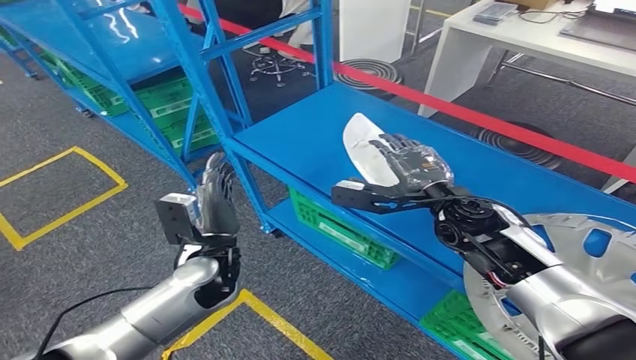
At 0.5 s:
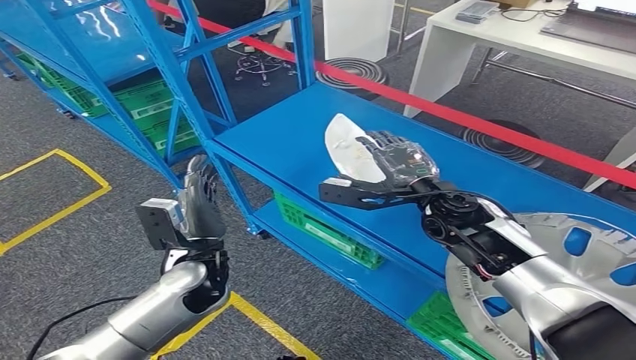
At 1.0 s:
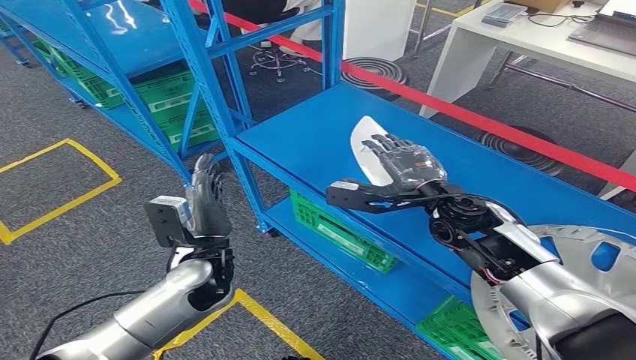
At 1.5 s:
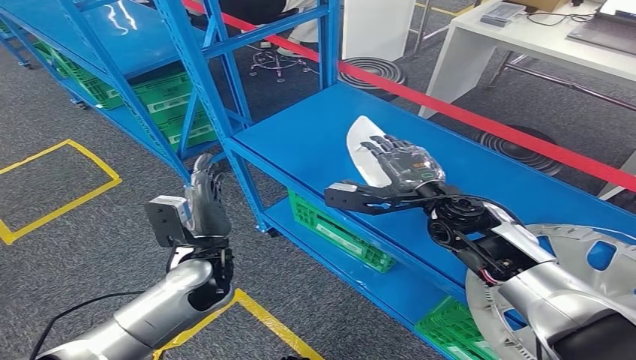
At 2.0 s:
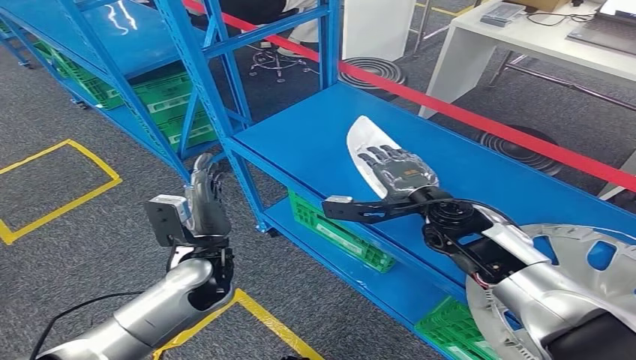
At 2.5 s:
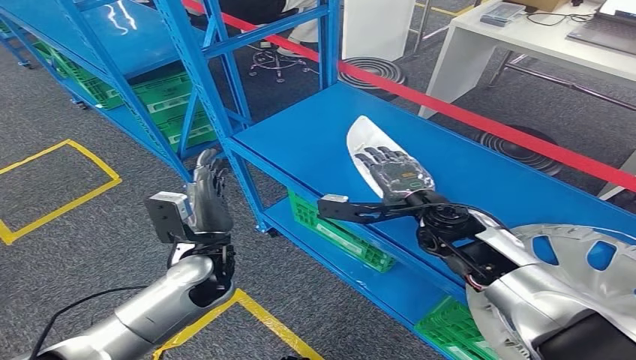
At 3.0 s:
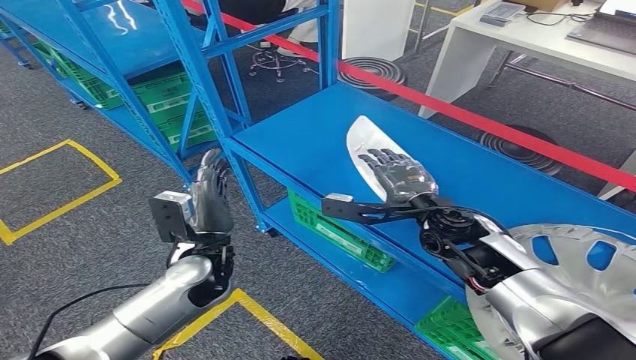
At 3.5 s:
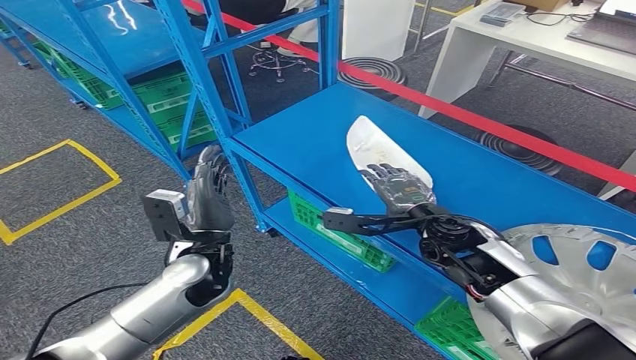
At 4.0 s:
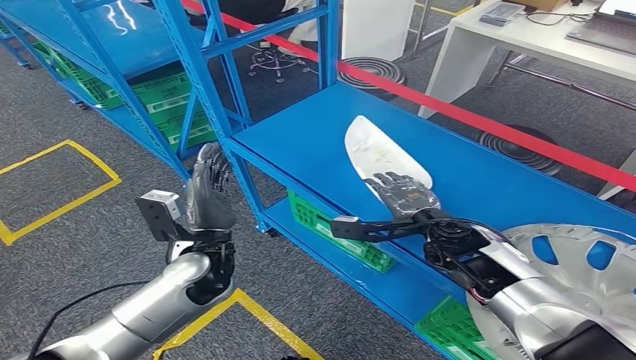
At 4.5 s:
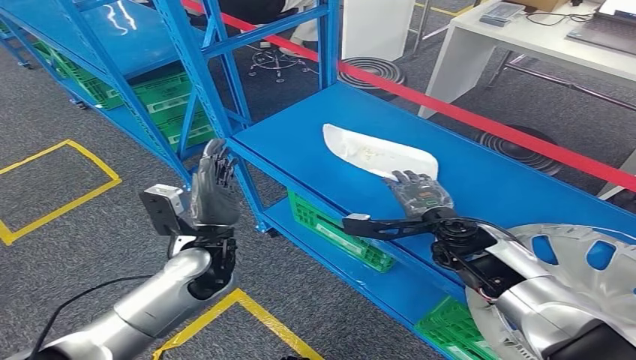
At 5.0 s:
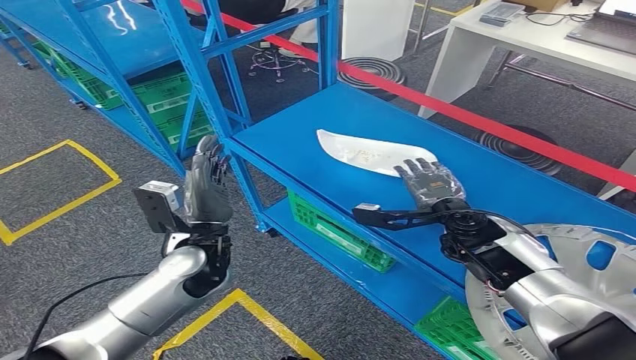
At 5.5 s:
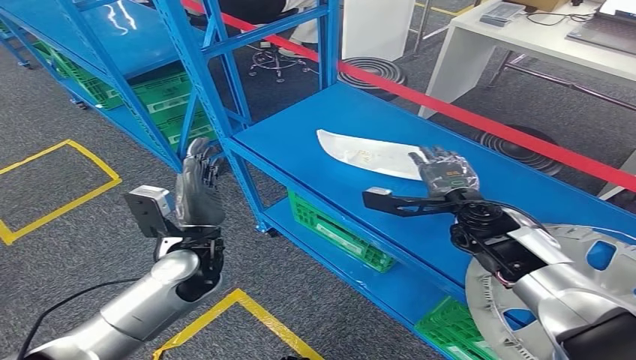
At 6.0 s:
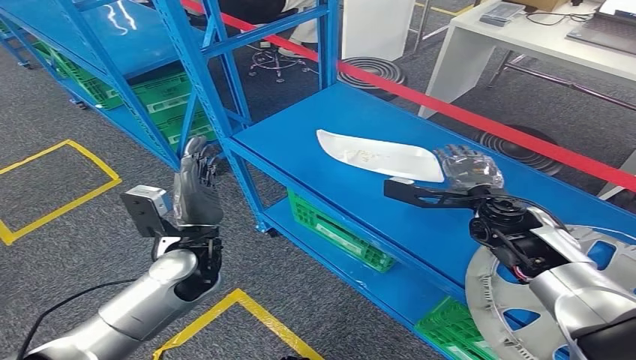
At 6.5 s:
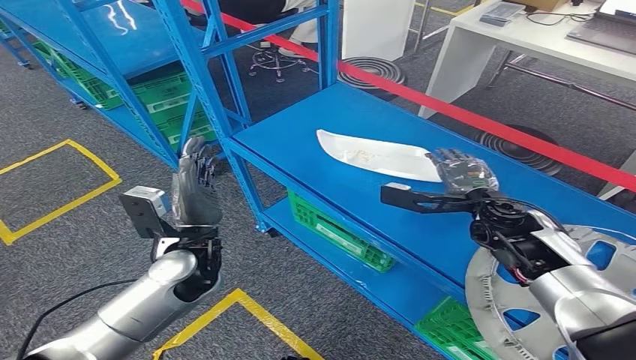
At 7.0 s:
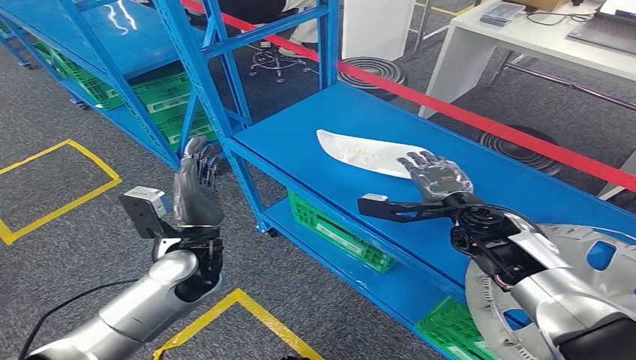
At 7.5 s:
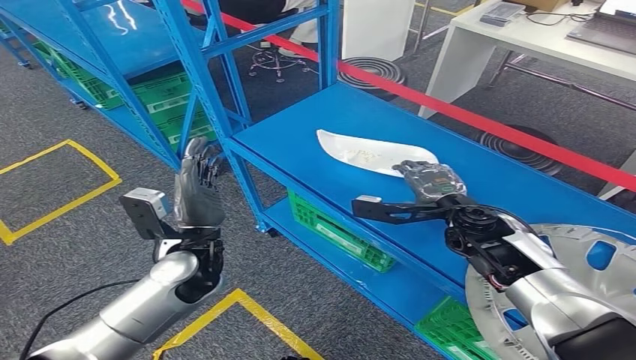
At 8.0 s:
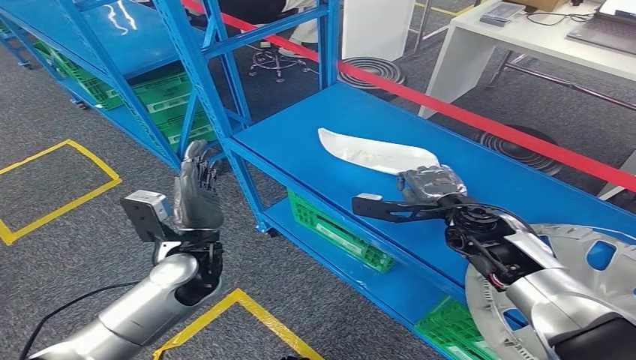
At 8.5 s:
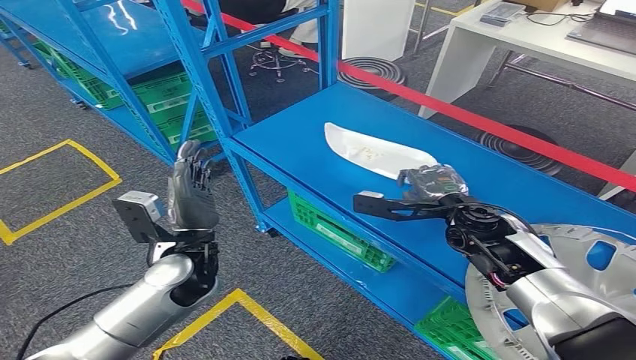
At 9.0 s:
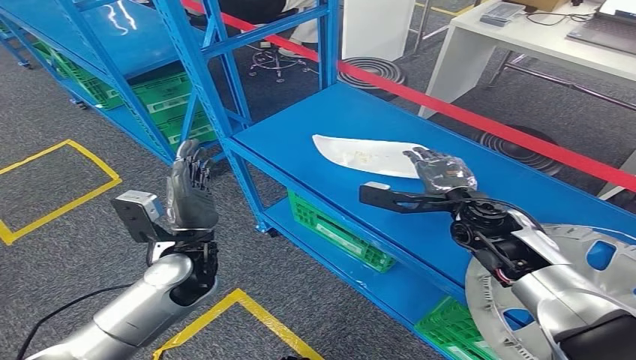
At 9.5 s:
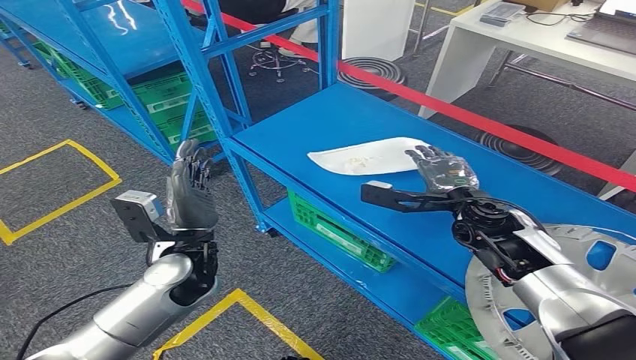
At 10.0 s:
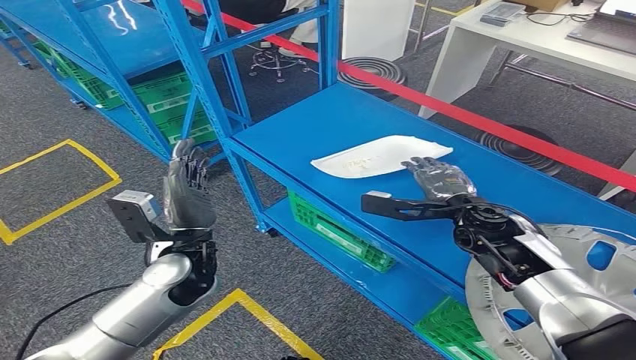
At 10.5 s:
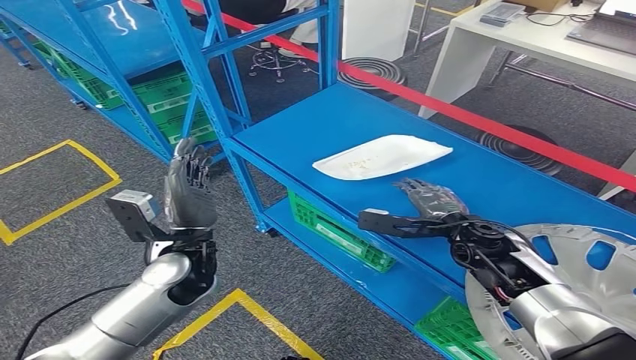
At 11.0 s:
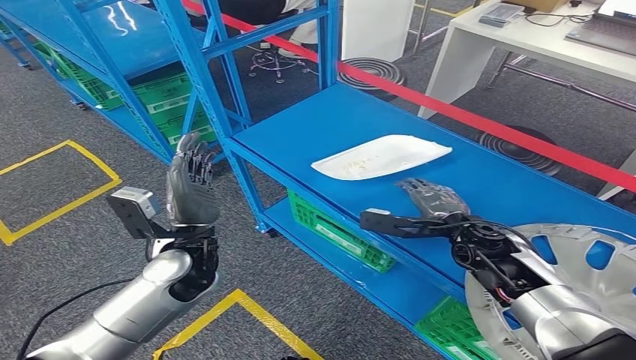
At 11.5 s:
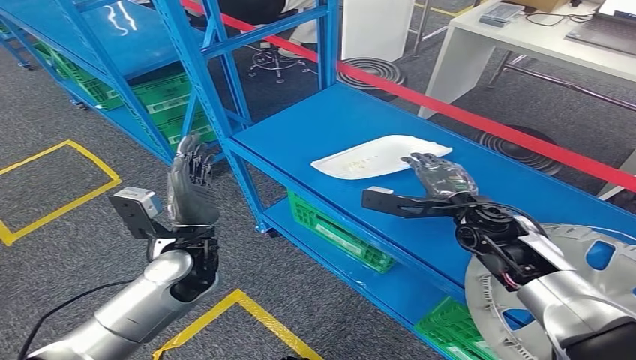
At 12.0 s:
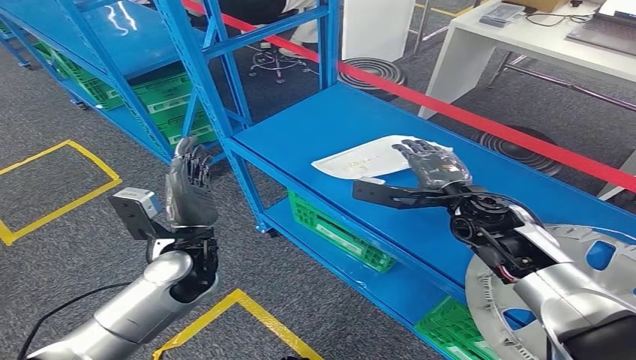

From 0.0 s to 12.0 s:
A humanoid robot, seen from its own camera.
From 2.0 s to 4.0 s: The right hand ends up roughly 5 cm from where it was.
From 4.0 s to 6.0 s: The right hand is displaced to the right by about 5 cm.
From 6.0 s to 10.0 s: There are only small adjustments of the hands.
From 10.0 s to 12.0 s: The hands stay close to where they were, moving slightly.

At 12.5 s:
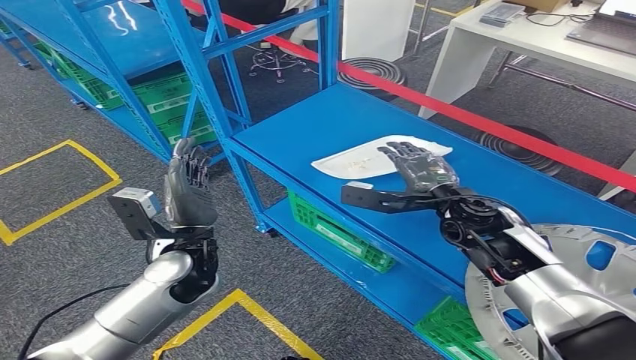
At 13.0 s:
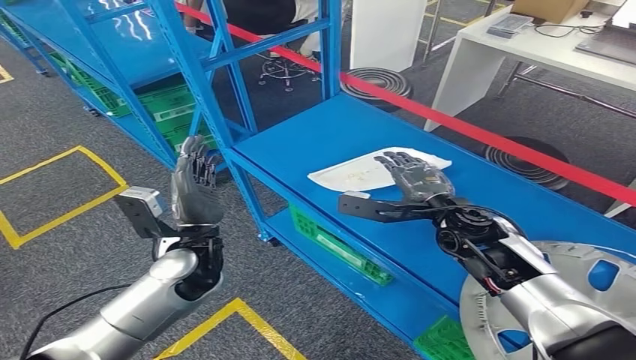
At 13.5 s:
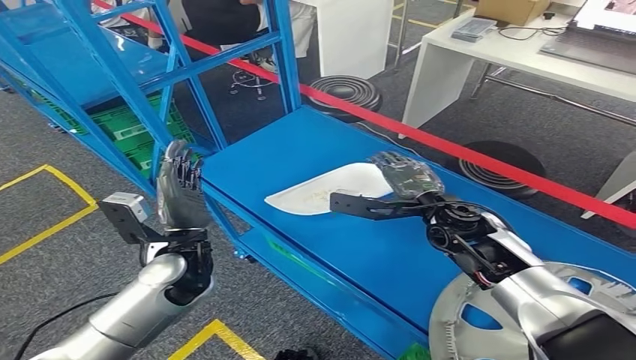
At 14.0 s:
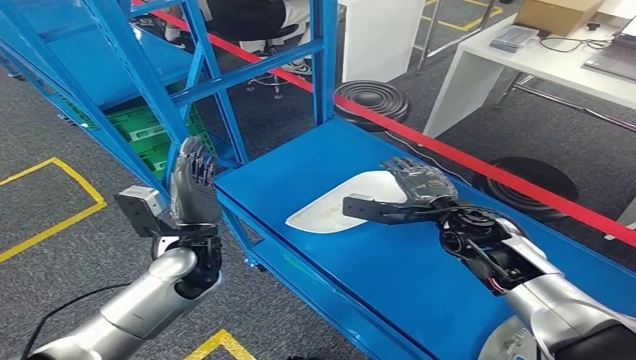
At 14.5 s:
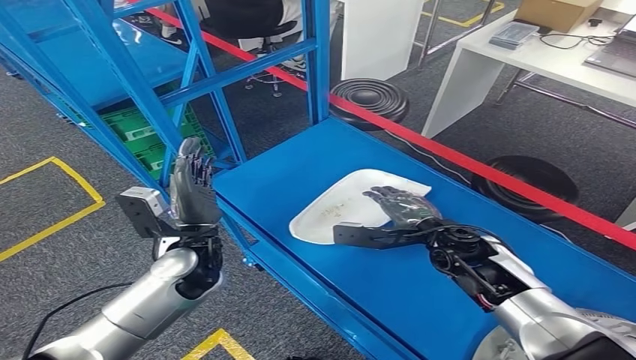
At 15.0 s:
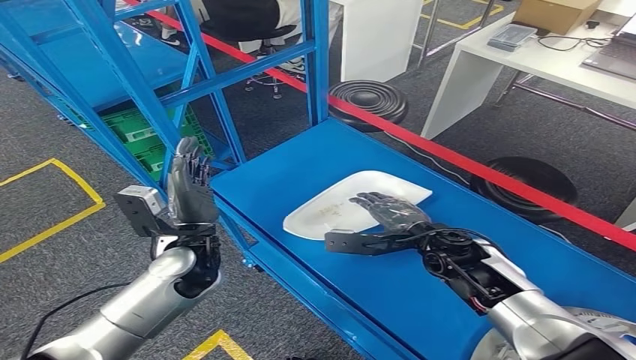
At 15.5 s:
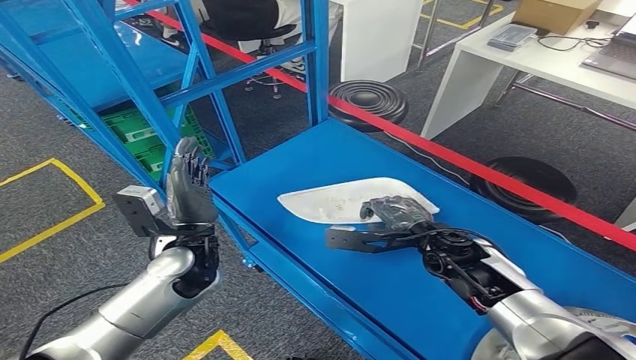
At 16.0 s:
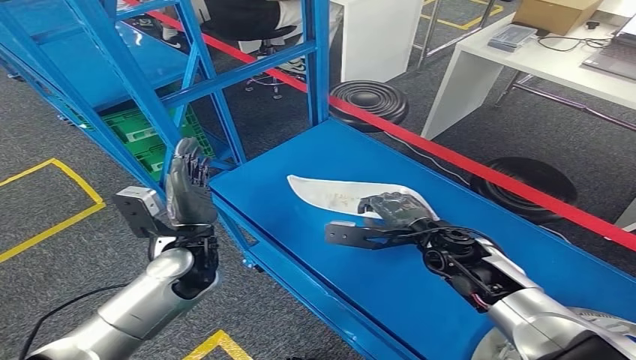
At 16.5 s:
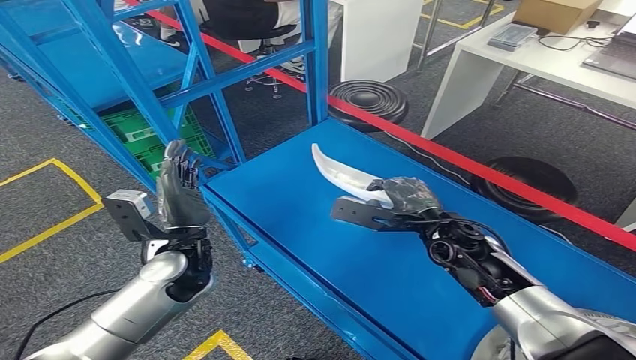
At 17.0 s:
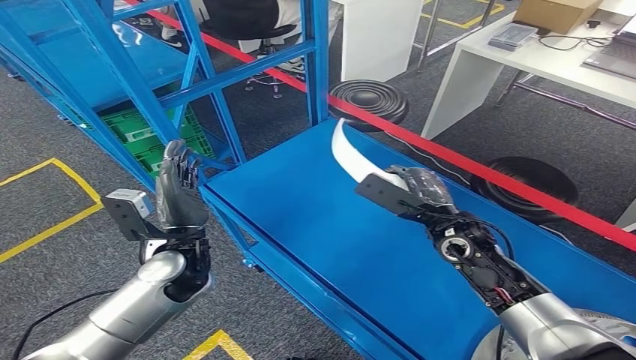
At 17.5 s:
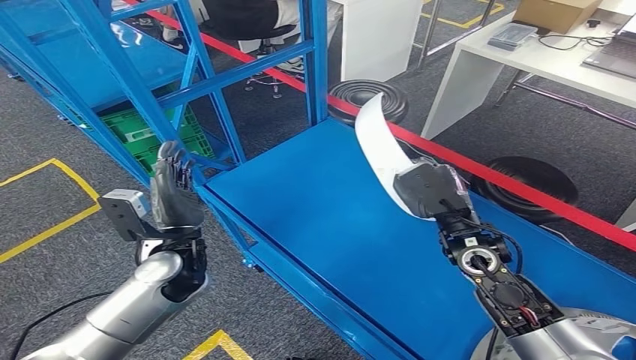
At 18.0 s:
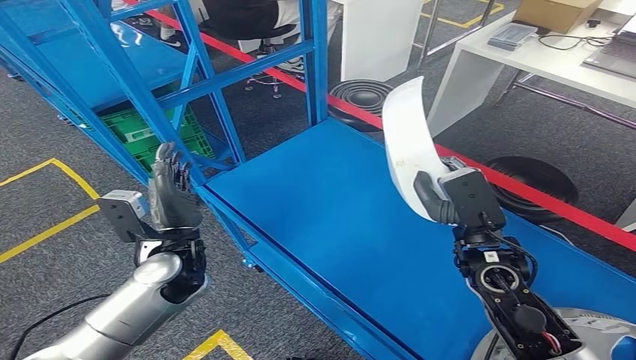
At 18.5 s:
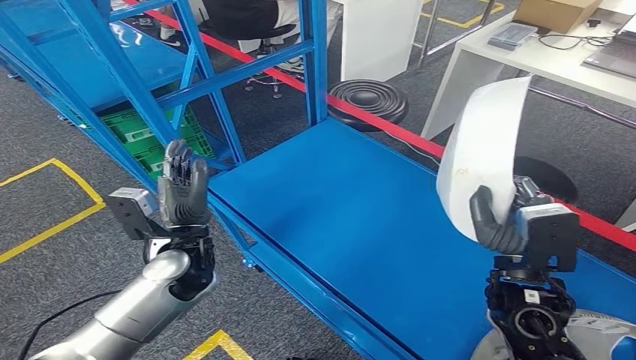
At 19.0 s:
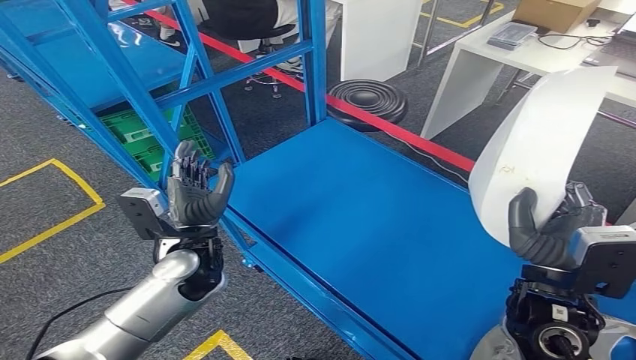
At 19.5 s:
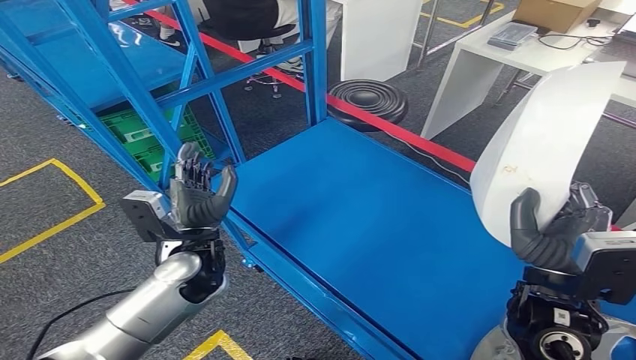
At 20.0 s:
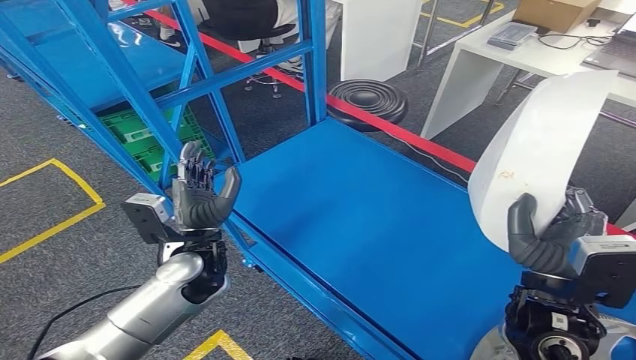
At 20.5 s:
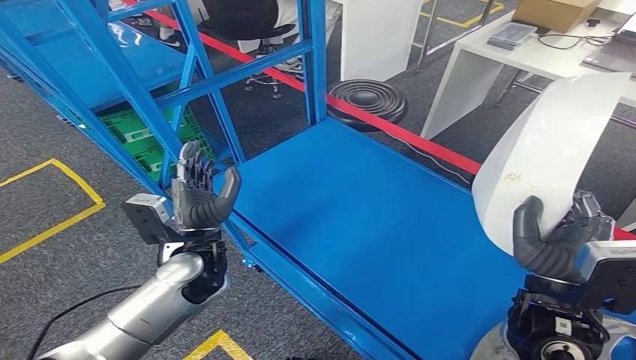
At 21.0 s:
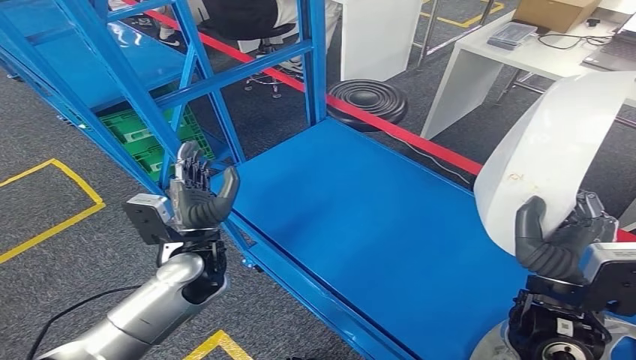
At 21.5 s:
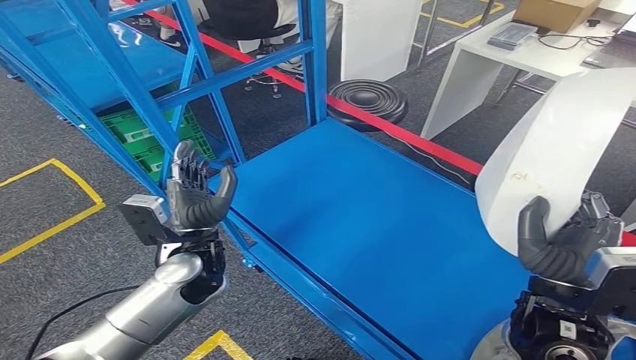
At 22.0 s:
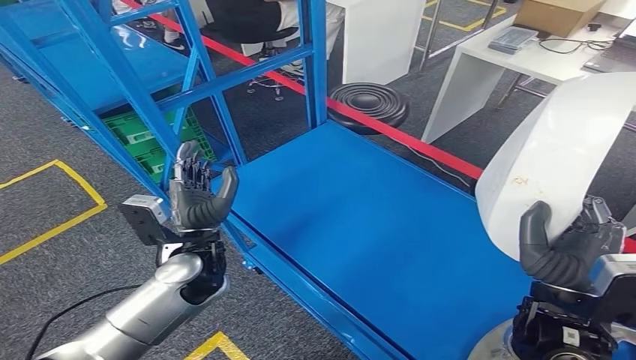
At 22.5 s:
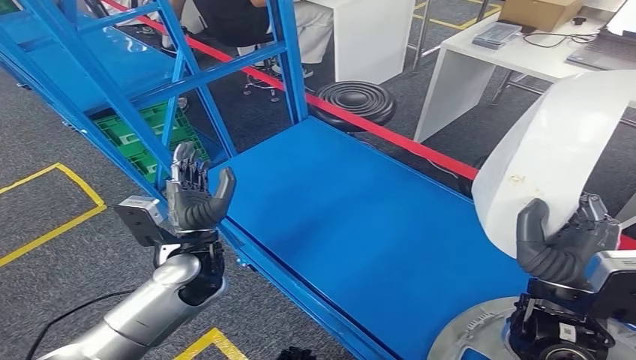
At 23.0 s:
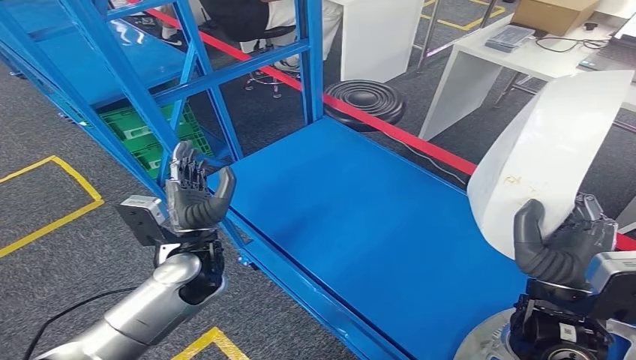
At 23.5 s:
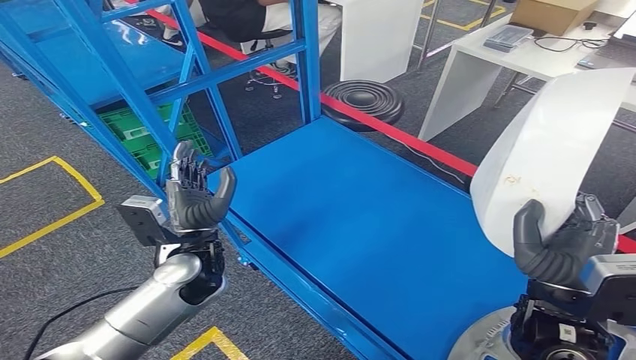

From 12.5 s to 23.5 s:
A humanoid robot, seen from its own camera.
Step, from 12.5 s to 15.5 s: Grasp the white part with right gripper.
From 14.5 s to 16.0 s: The hands stay close to where they were, moving slightly.
From 16.0 s to 18.0 s: The right hand ends up approximately 5 cm from where it was.
From 20.0 s to 21.5 s: Both hands stay put.
From 21.5 s to 23.5 s: Neither hand changes place.
